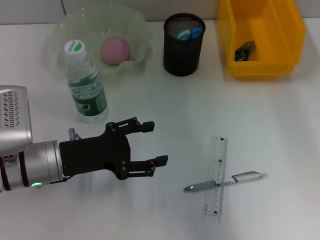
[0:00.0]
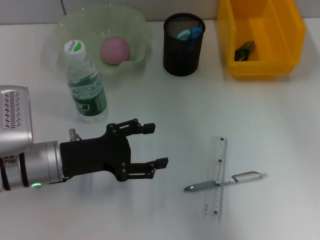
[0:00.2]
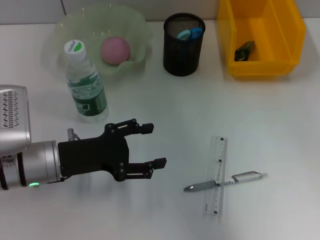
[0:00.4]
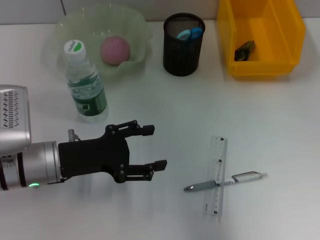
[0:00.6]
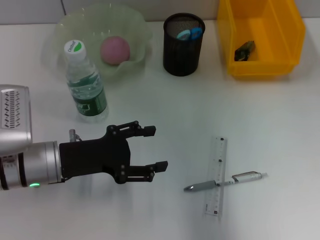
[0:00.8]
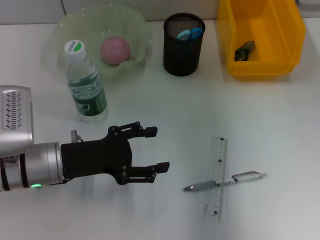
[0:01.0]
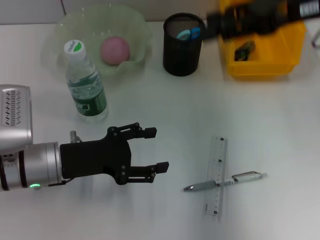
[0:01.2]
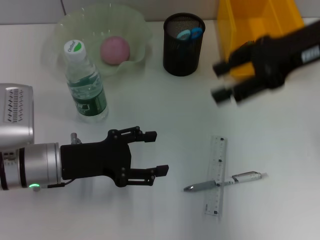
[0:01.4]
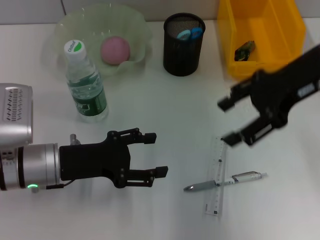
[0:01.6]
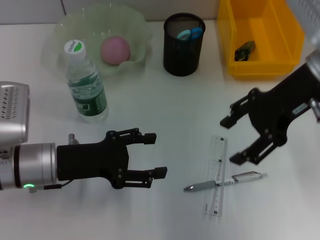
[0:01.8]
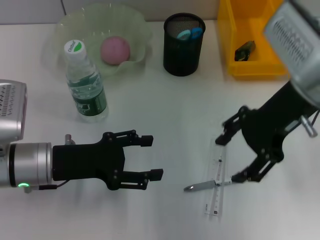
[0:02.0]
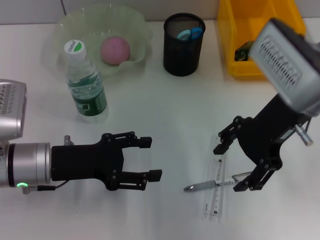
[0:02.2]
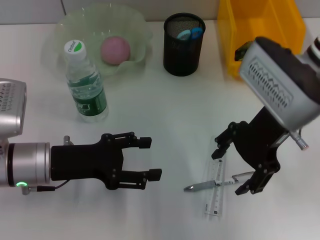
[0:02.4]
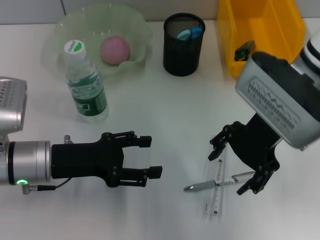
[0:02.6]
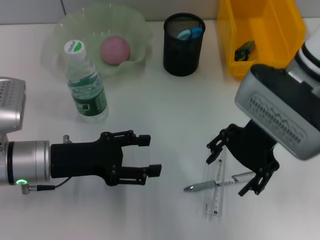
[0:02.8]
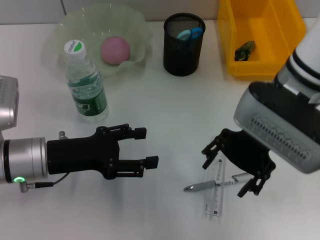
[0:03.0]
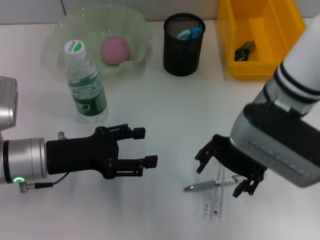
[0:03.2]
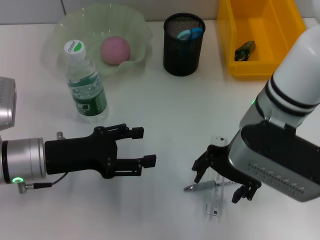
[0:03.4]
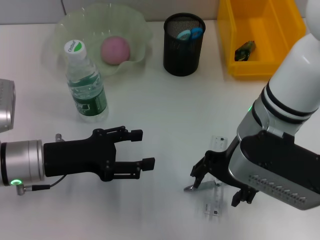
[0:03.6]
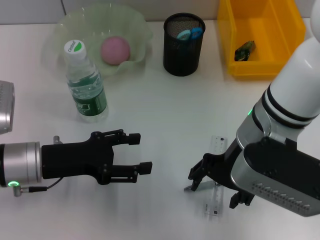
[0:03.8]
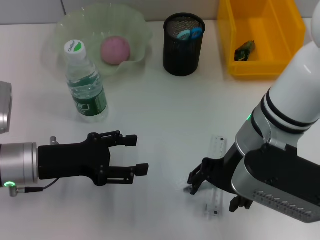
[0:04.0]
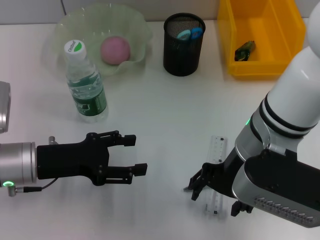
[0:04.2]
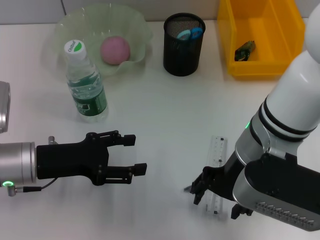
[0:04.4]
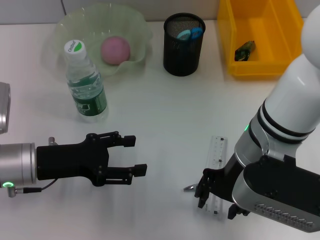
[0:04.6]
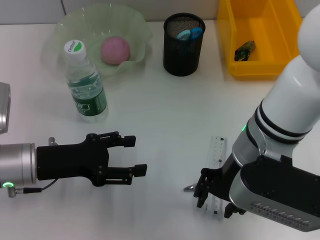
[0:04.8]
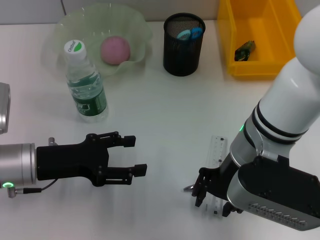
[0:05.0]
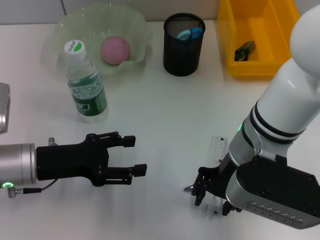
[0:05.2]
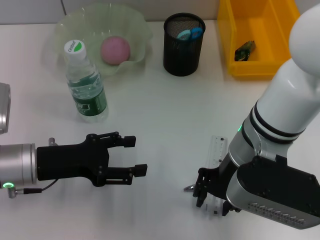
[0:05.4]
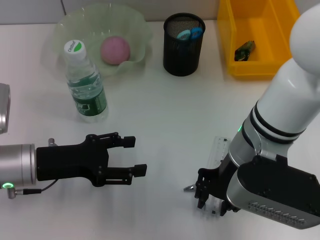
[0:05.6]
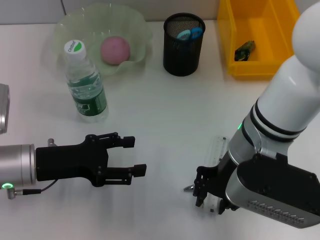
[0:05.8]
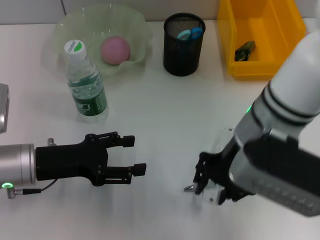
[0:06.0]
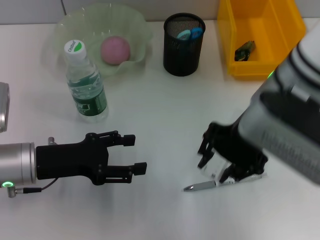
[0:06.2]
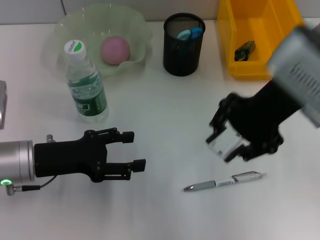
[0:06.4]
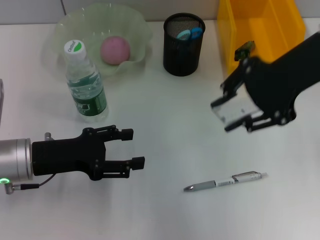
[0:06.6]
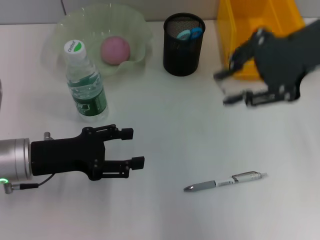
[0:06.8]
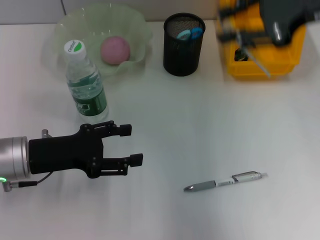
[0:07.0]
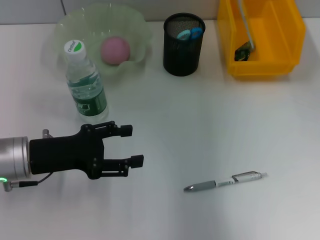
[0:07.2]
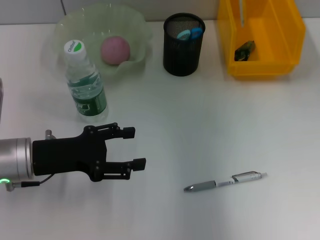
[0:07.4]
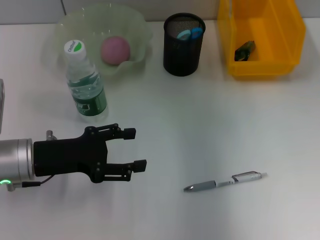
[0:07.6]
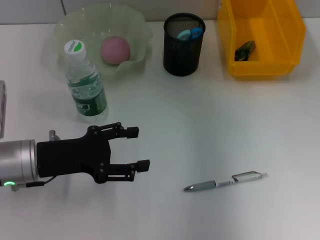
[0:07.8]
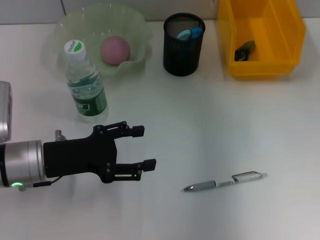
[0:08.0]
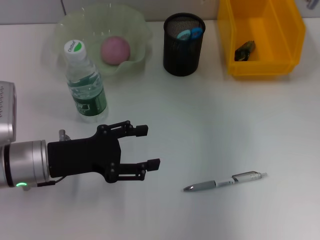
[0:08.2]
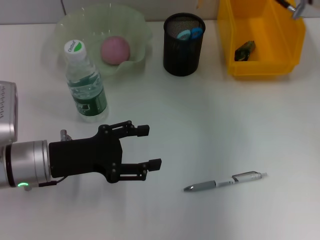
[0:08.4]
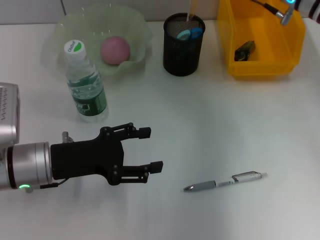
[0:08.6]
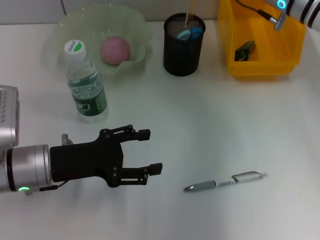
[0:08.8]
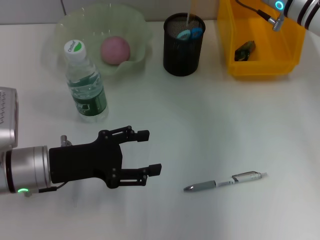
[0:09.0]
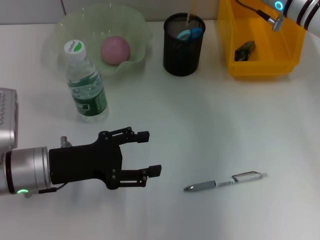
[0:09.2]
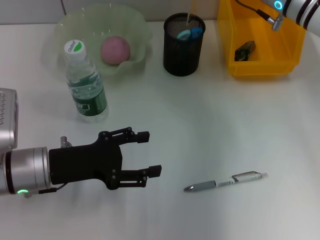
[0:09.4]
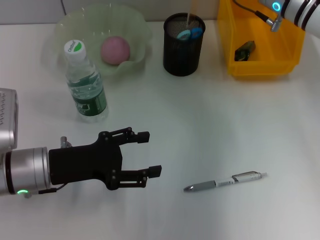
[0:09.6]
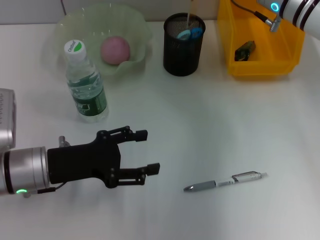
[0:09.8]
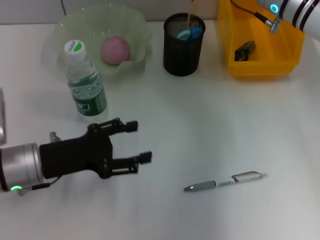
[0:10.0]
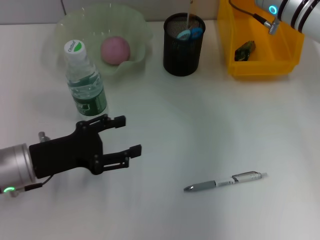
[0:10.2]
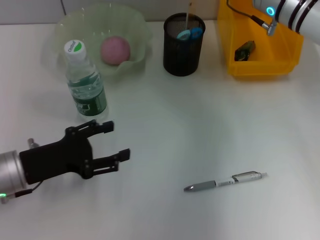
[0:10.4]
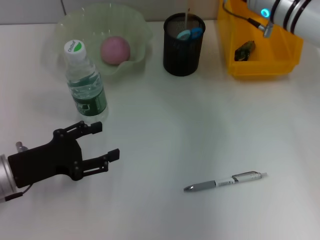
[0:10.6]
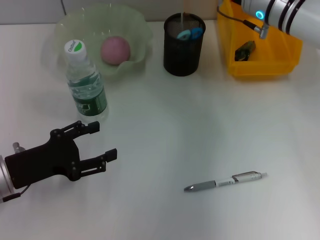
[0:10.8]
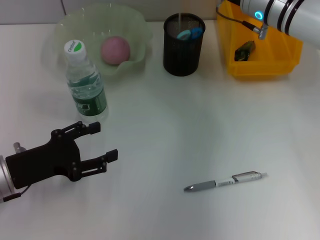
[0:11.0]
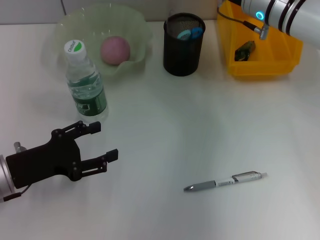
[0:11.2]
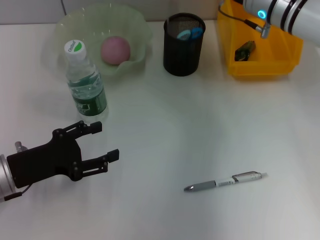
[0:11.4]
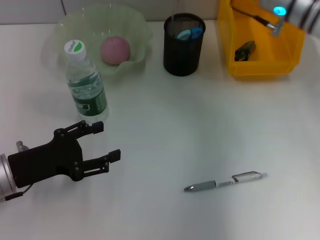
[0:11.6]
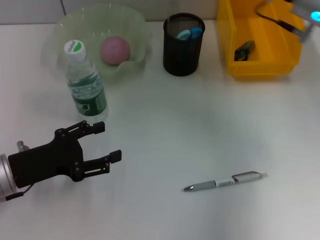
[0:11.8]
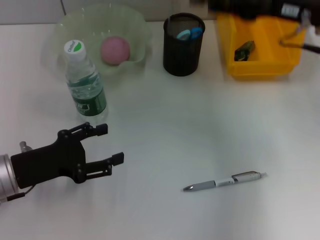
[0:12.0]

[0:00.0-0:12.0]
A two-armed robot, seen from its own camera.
Step, 0:00.0 to 0:05.4: Grab the ruler with the right hand.
Step, 0:05.6 to 0:11.2: Place the ruler into the pen holder with the right hand.
0:01.6 to 0:03.0: The right gripper shifts about 10 cm to the left.
0:03.0 to 0:04.4: The right gripper changes place by approximately 5 cm.
0:04.4 to 0:06.0: The right gripper closes its fingers.
0:06.0 to 0:07.6: The right gripper goes roughly 20 cm forward, to the right and upward.
0:07.6 to 0:09.0: The right gripper goes approximately 10 cm downward and to the left.
0:09.0 to 0:10.4: There are only small adjustments of the grippers.
0:10.4 to 0:12.0: The right gripper is displaced backward and to the right by some 10 cm, and opens up.

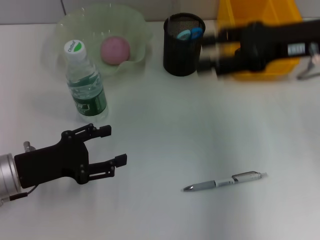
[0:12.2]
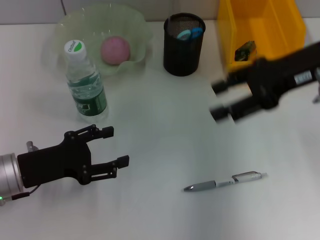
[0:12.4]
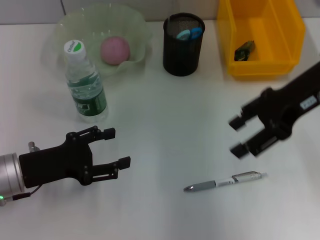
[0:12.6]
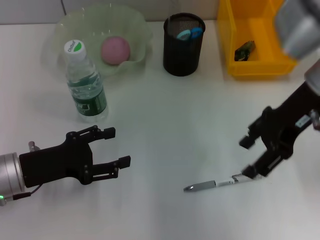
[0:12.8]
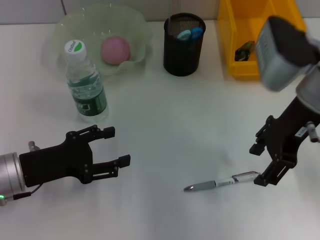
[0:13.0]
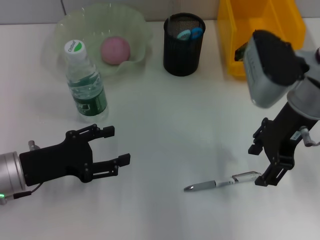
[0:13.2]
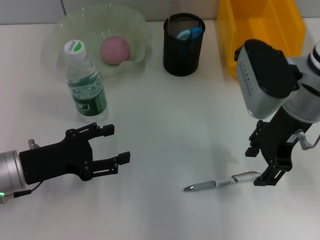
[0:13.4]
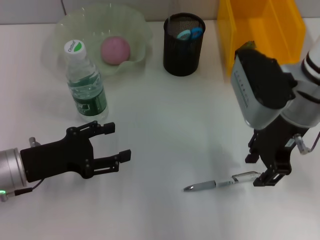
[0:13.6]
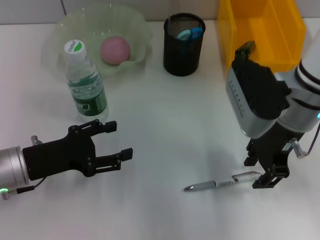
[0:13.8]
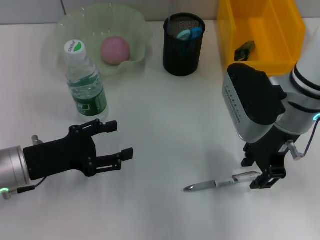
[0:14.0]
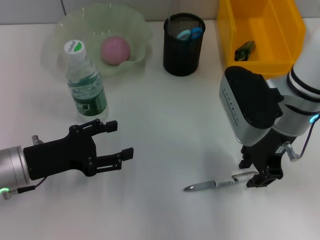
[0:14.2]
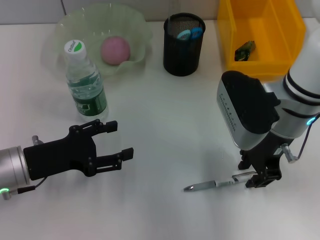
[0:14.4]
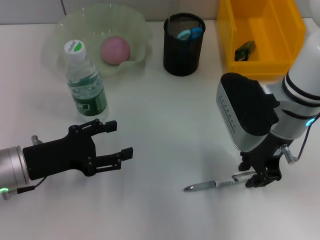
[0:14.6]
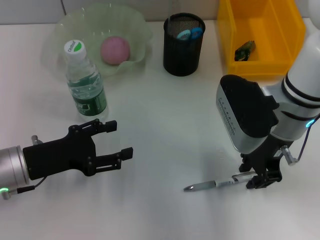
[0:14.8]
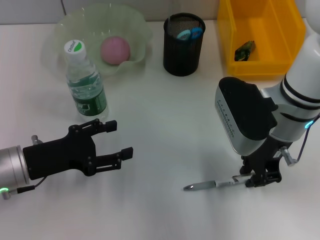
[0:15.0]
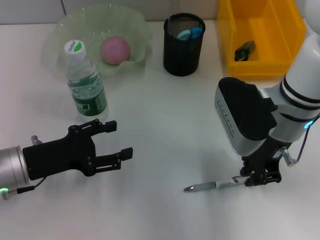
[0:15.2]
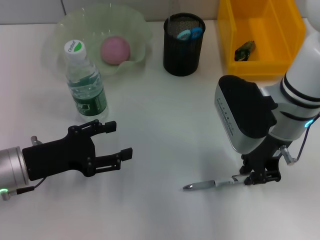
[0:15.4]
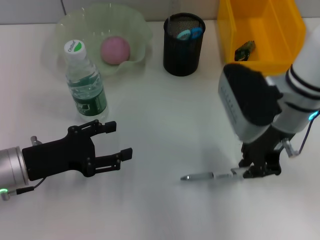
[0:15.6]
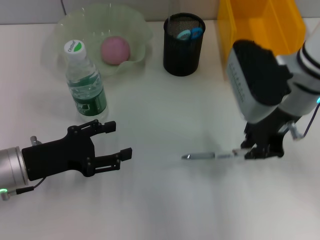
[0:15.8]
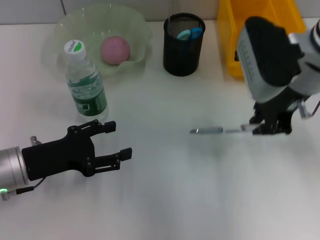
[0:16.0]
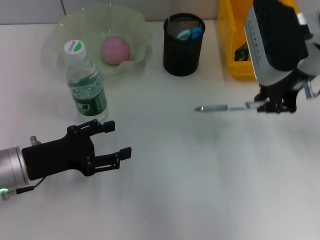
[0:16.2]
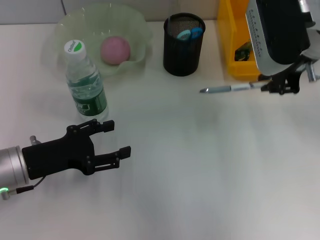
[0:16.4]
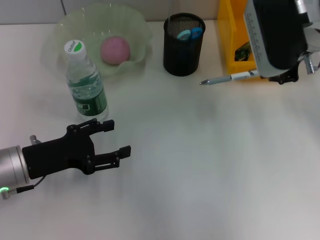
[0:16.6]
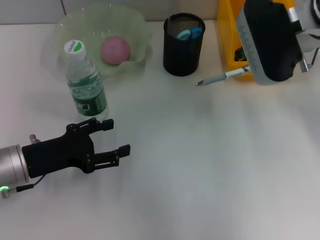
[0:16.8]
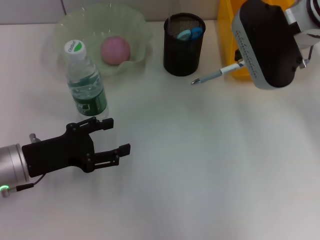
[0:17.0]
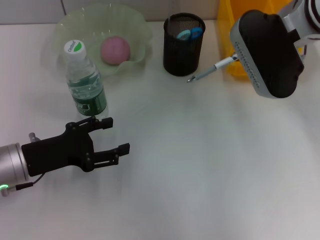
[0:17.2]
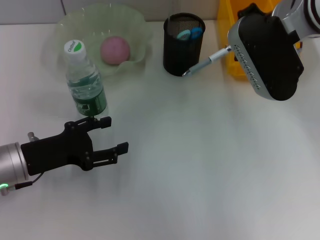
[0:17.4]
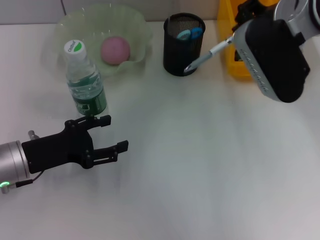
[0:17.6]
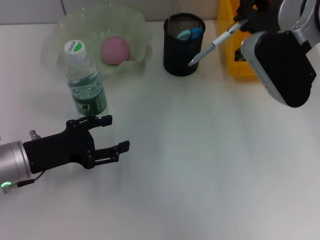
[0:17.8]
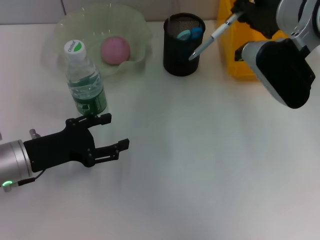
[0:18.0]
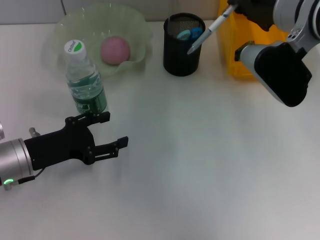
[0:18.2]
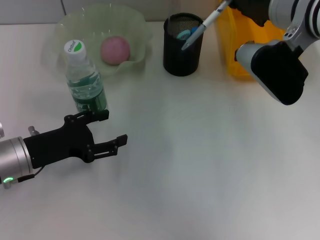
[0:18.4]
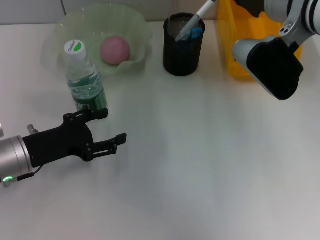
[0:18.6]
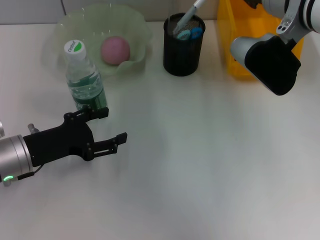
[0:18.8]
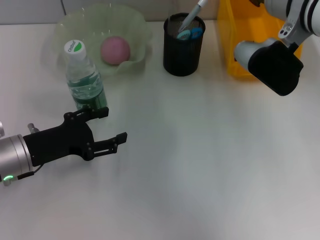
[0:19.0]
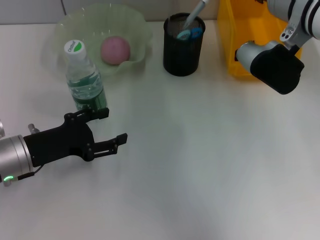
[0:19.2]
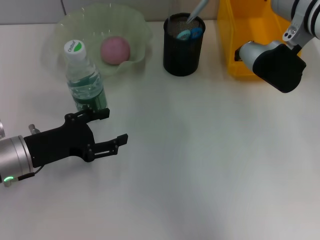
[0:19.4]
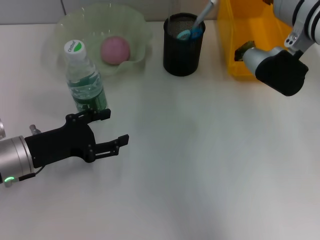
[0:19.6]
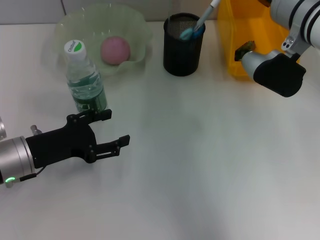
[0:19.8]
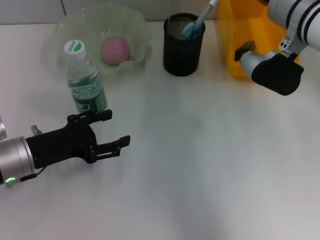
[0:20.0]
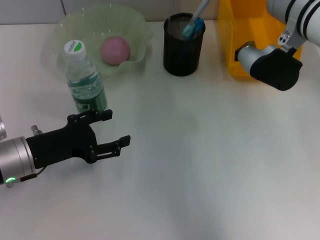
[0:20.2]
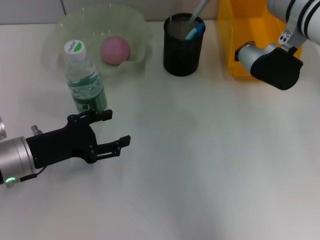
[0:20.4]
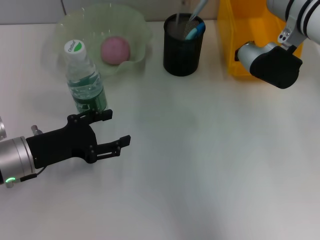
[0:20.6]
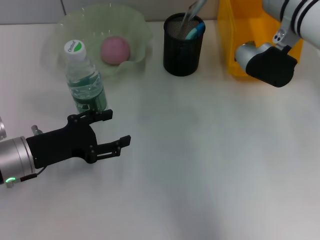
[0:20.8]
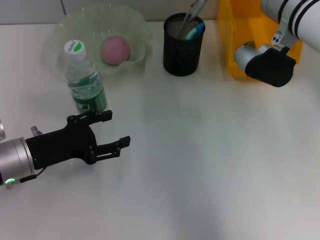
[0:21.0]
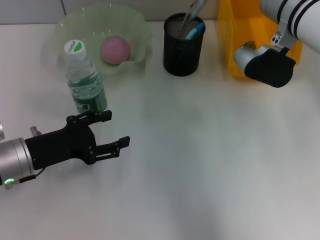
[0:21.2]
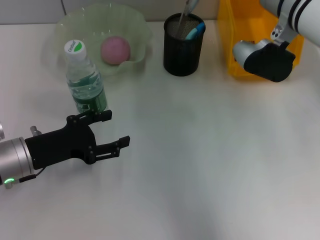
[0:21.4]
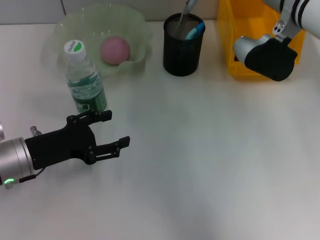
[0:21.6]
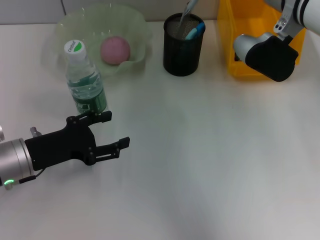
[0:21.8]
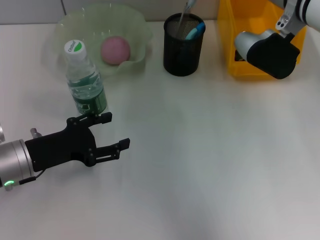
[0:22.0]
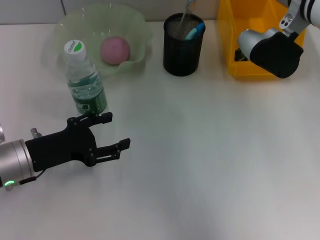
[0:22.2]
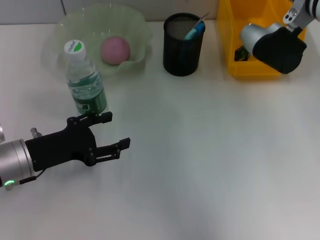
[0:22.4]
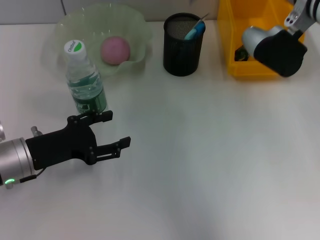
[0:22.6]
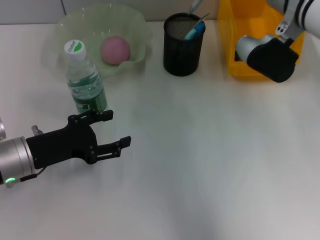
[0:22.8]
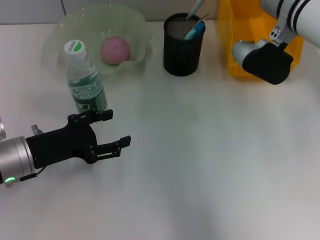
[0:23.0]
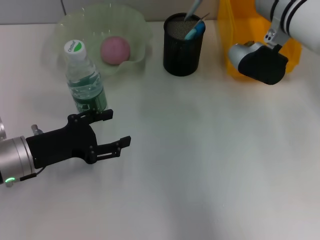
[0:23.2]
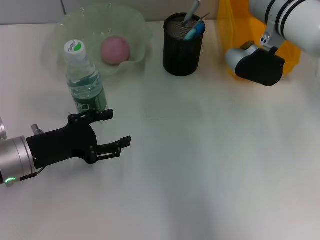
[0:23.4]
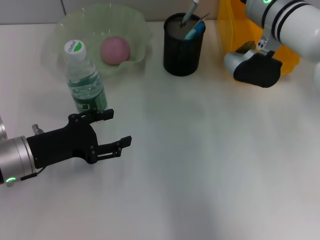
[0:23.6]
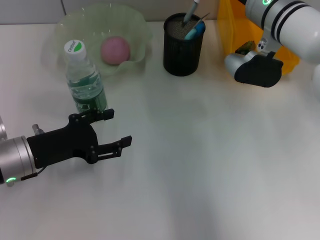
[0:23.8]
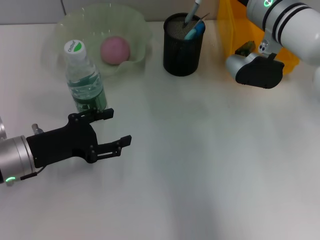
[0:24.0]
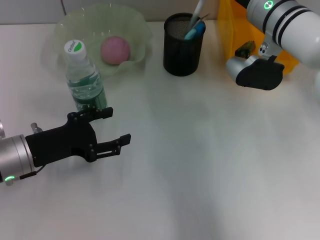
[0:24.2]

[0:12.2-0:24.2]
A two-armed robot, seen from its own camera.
Step, 0:12.2 to 0:15.2: Grab the gray spring-action pen with the right hand.
0:12.2 to 0:13.8: The right gripper travels to the left and downward by about 10 cm, and closes its fingers.
0:13.8 to 0:15.2: The right gripper closes up.
0:15.2 to 0:16.6: The right gripper moves upward and forward, some 10 cm.
0:19.8 to 0:22.6: There are only small adjustments of the grippers.
0:22.6 to 0:24.2: The right gripper is displaced downward by about 5 cm.
